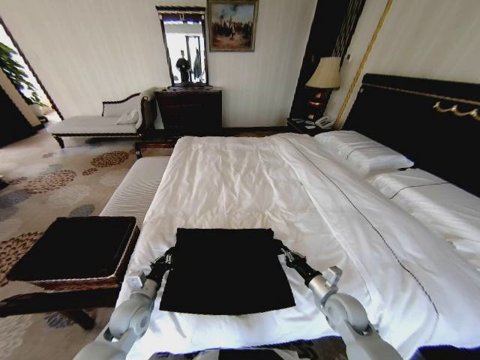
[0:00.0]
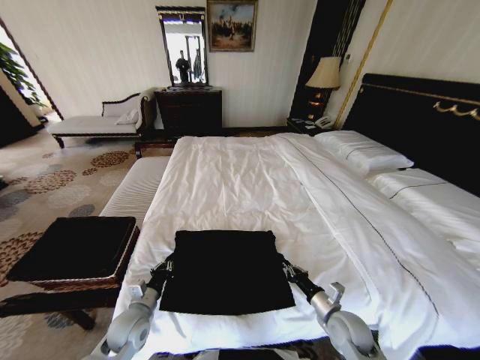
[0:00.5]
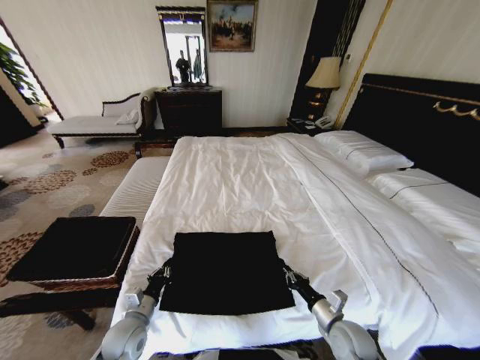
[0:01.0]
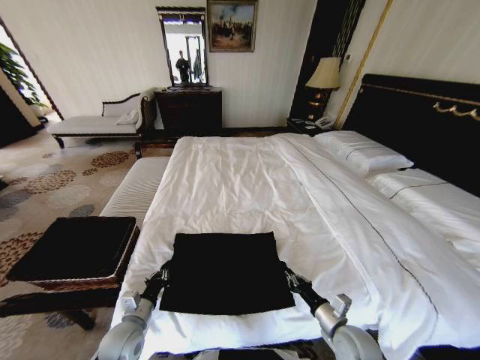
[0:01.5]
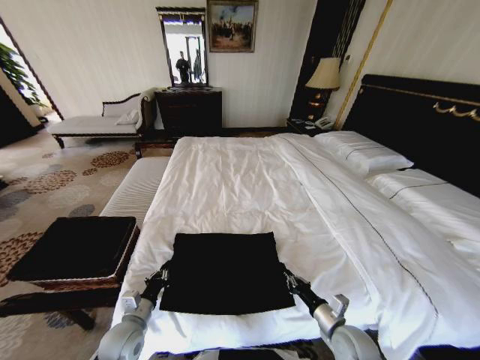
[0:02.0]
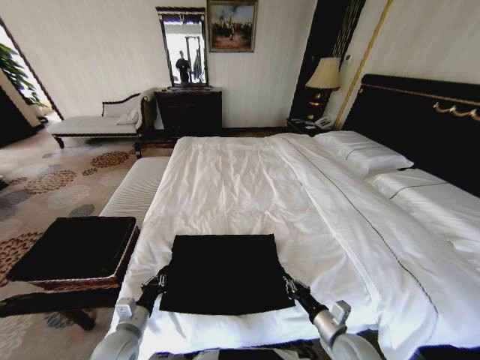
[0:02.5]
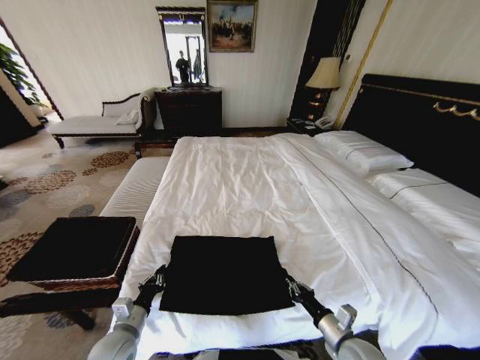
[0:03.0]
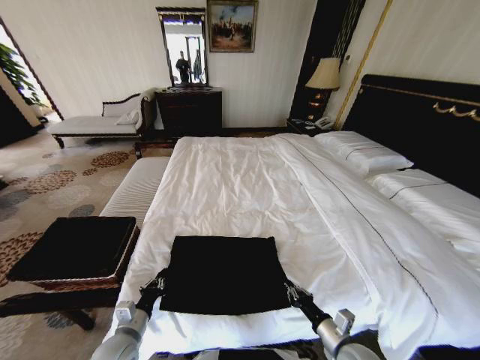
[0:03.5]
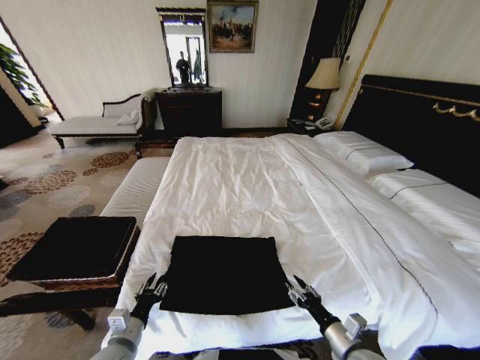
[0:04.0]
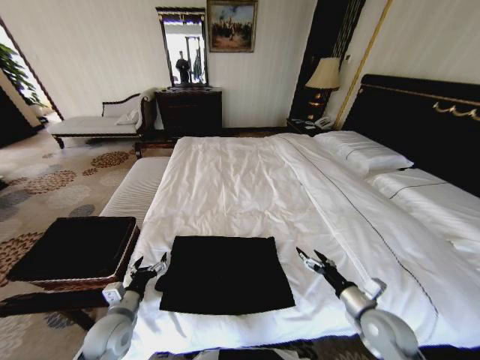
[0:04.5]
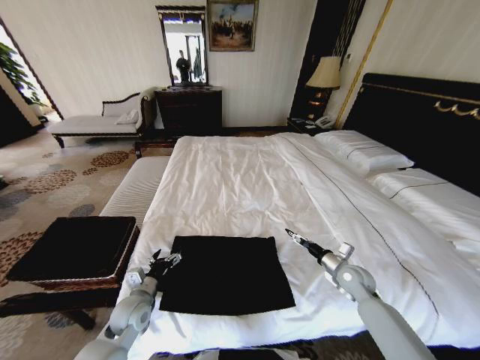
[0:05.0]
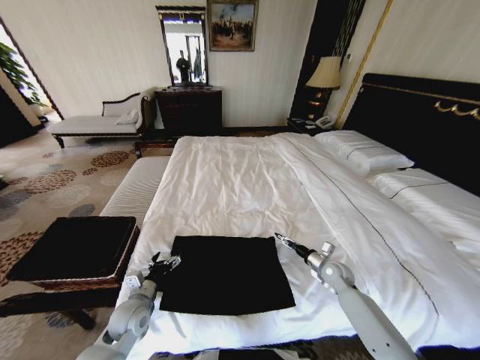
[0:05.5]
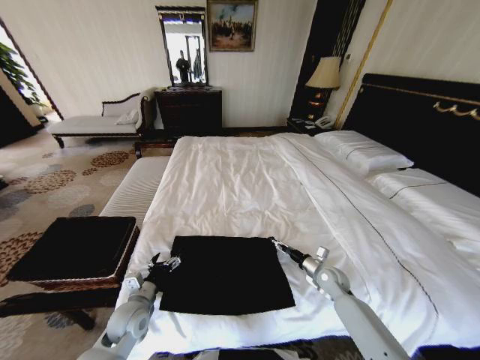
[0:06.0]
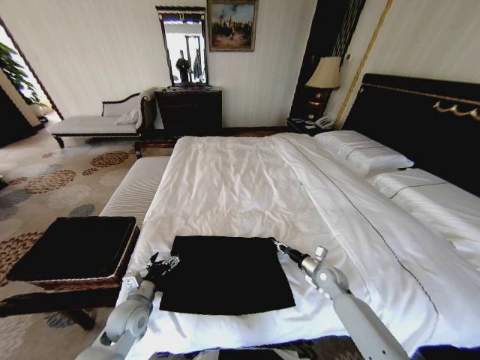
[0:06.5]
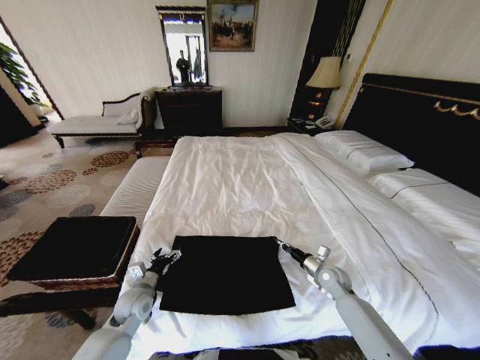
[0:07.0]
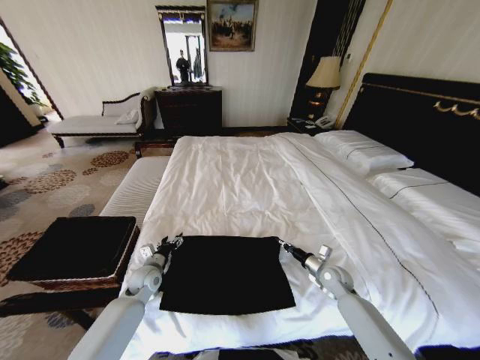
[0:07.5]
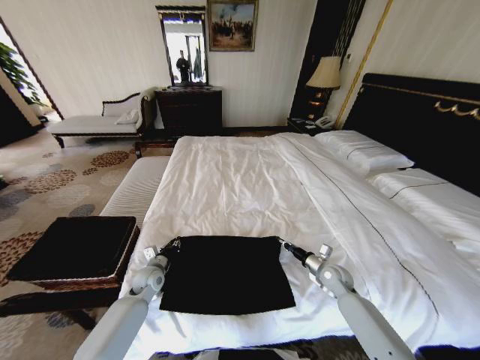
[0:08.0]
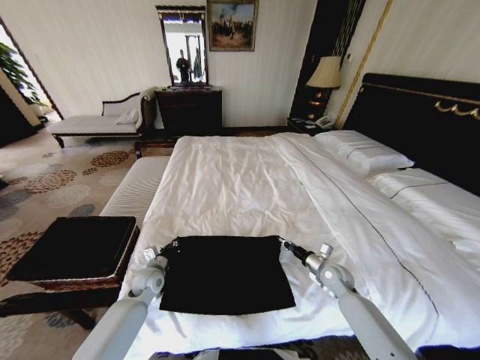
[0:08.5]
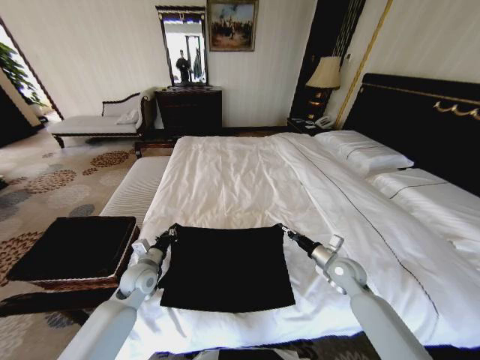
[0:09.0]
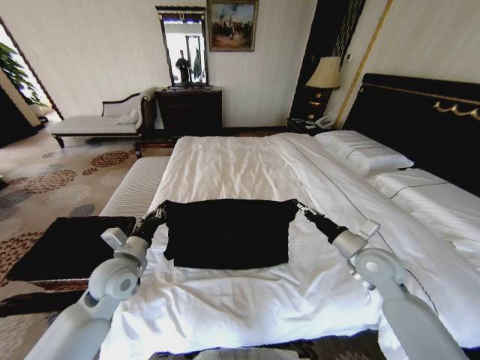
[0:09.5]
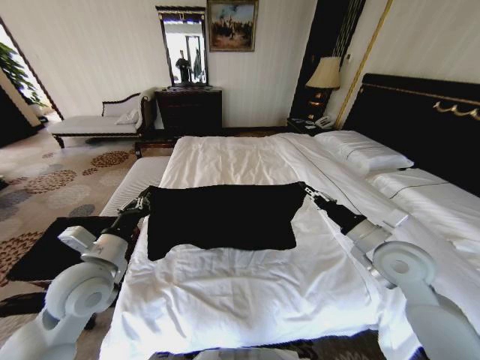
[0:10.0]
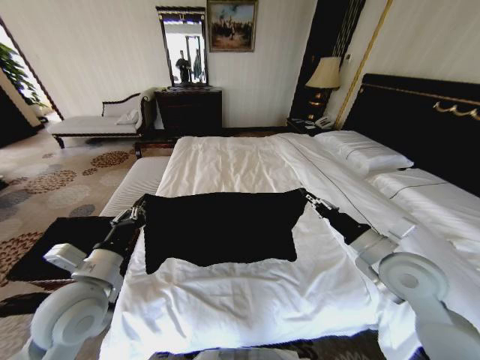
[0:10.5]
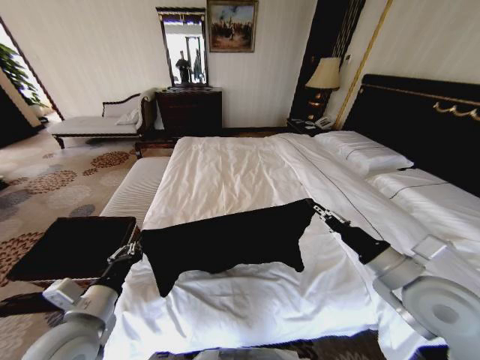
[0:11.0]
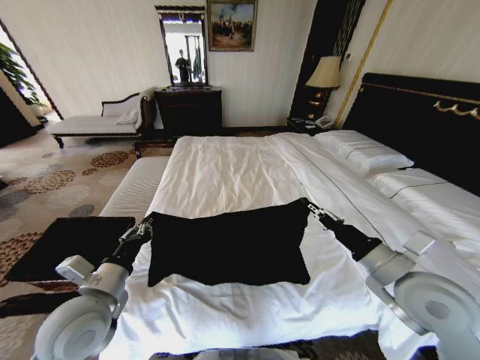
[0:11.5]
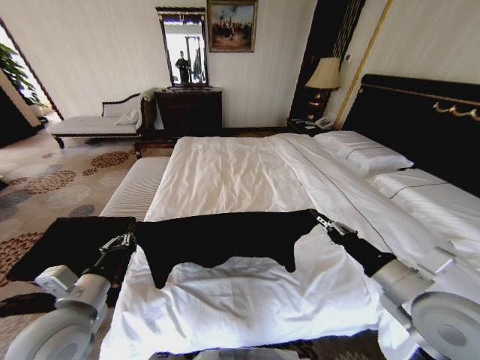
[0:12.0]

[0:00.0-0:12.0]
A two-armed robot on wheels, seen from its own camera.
Task of the whole recording: Fold the clothes on the bed and place them into the basket.
0:00.0 to 0:02.0: The grippers both shift backward by approximately 5 cm.
0:02.0 to 0:04.0: The left gripper moves approximately 5 cm, and opens; the right gripper travels backward by some 5 cm, and opens up.
0:04.0 to 0:06.0: The left gripper moves forward, roughly 10 cm, and opens. Meanwhile the right gripper shifts roughly 25 cm forward.
0:06.0 to 0:08.0: The left gripper moves forward, approximately 10 cm, and closes, while the right gripper closes its fingers.
0:08.0 to 0:10.0: The left gripper moves upward and backward, some 25 cm. Meanwhile the right gripper goes approximately 25 cm upward.
0:10.0 to 0:12.0: Both grippers travel together backward, about 10 cm.

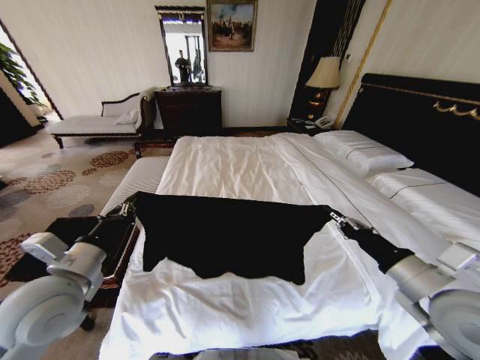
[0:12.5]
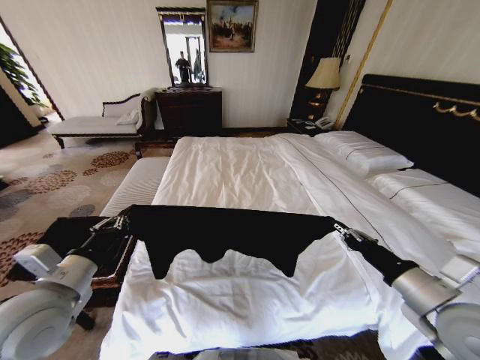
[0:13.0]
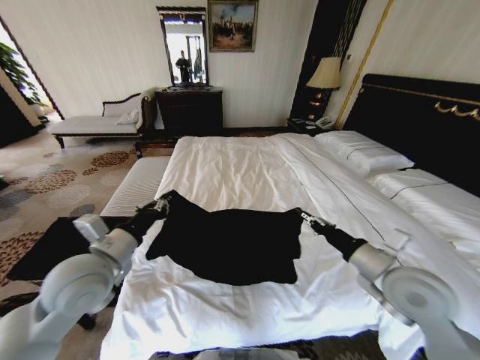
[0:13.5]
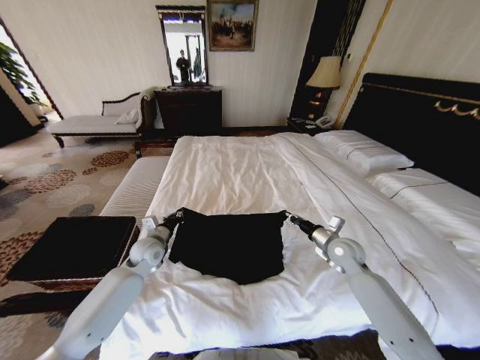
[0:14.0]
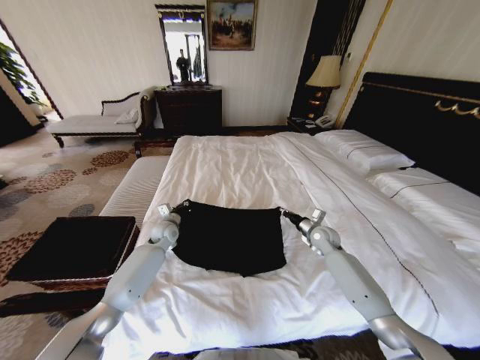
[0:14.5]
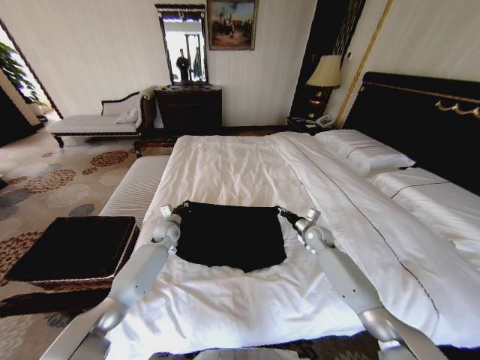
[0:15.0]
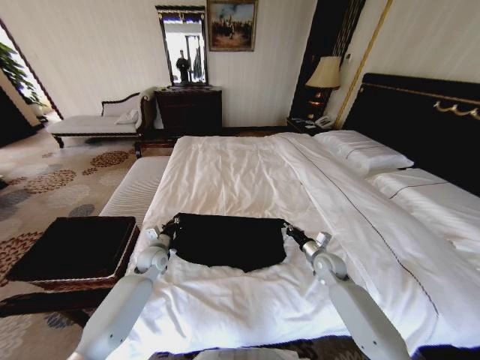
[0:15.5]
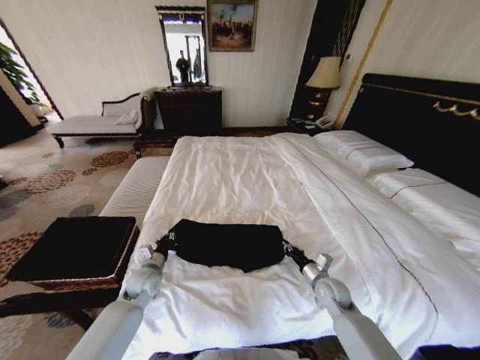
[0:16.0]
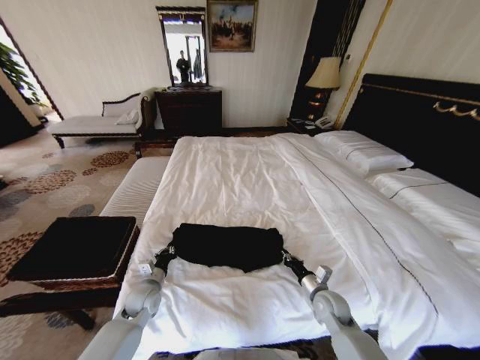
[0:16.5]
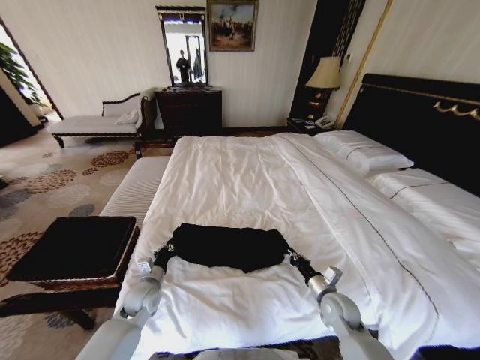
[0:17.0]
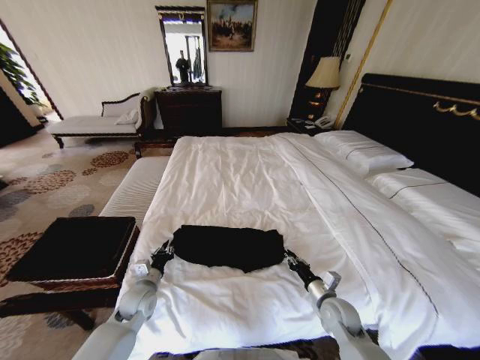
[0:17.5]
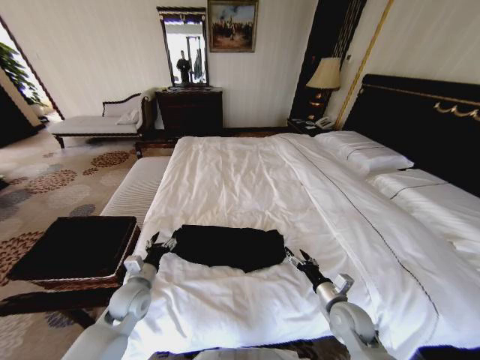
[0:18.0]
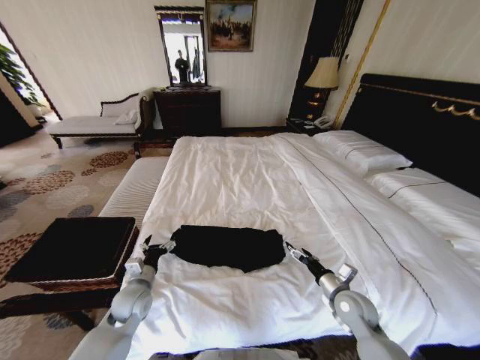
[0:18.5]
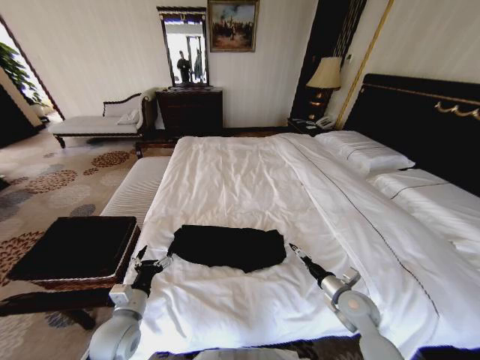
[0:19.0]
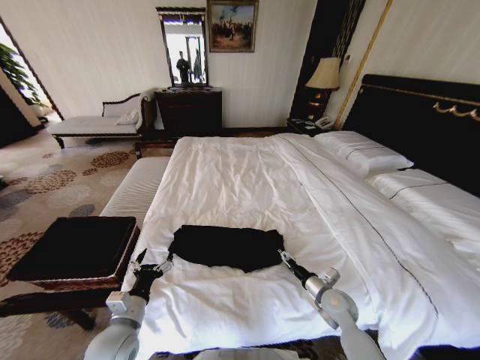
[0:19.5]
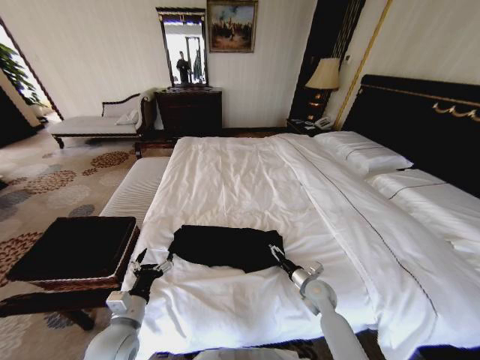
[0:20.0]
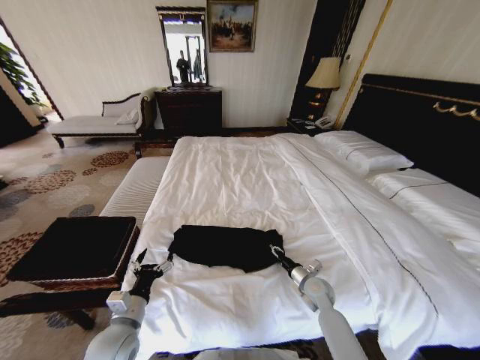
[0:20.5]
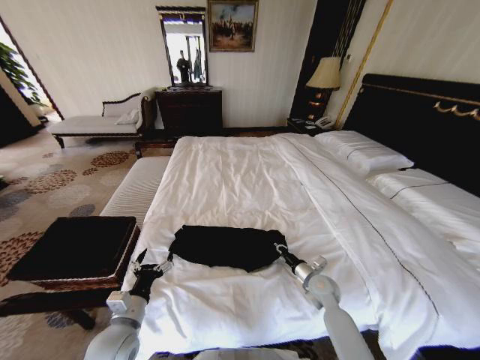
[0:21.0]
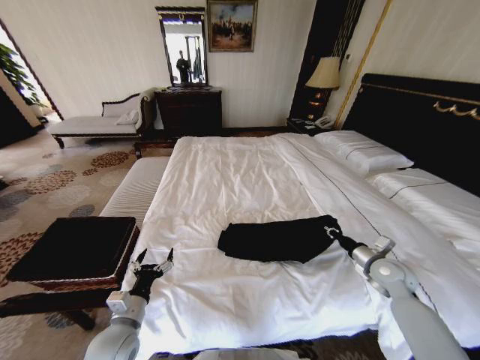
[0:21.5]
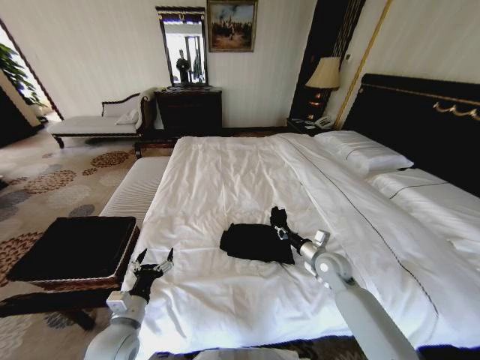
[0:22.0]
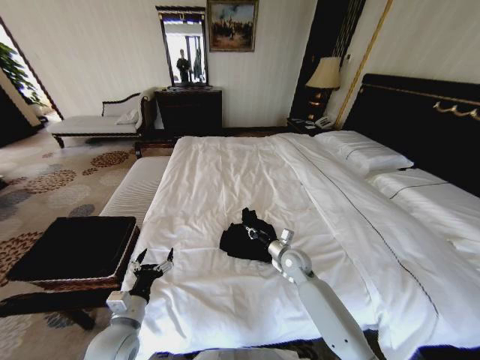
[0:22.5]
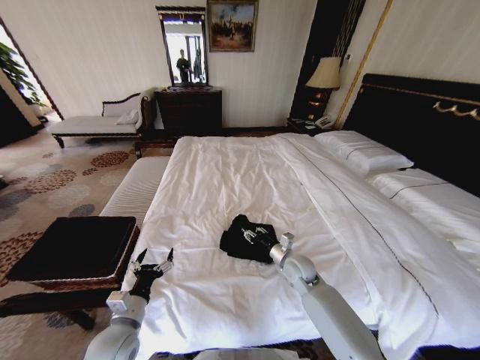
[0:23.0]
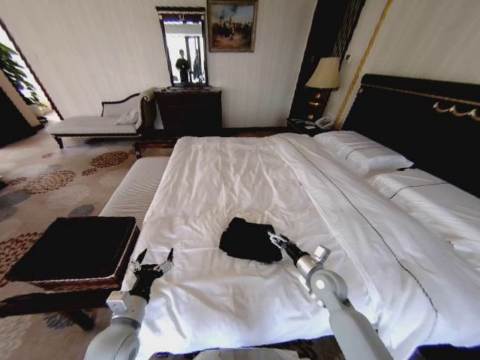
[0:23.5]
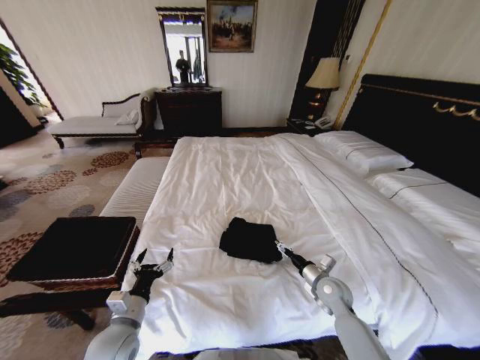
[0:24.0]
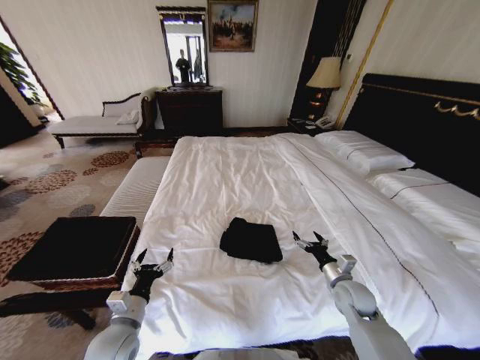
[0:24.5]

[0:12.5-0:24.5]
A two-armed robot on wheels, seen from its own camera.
Task of the whole recording: Fold the clothes on the bed and place them into the basket.
0:12.5 to 0:14.5: The grippers both shift forward and downward by approximately 35 cm.
0:14.5 to 0:16.5: Both grippers travel together backward and downward, about 20 cm.
0:16.5 to 0:18.5: Both grippers move upward, roughly 5 cm. The left gripper opens up; the right gripper opens.
0:18.5 to 0:20.5: The right gripper moves downward and forward, approximately 10 cm, and closes its fingers. The left gripper heads backward, covering roughly 10 cm.
0:20.5 to 0:22.5: The right gripper goes roughly 10 cm upward and forward, moves some 15 cm to the right and comes back, and closes.
0:22.5 to 0:24.5: The right gripper goes about 15 cm to the right and backward, and opens.

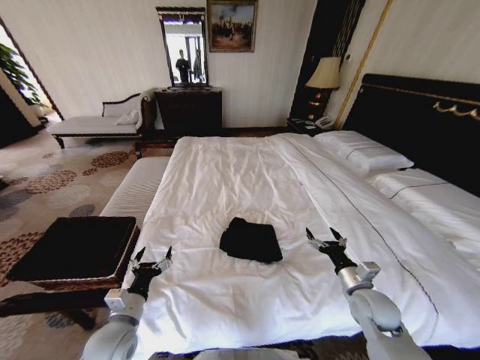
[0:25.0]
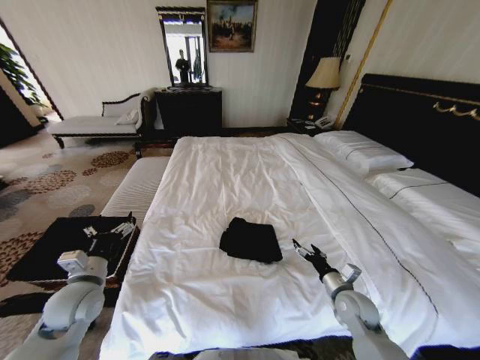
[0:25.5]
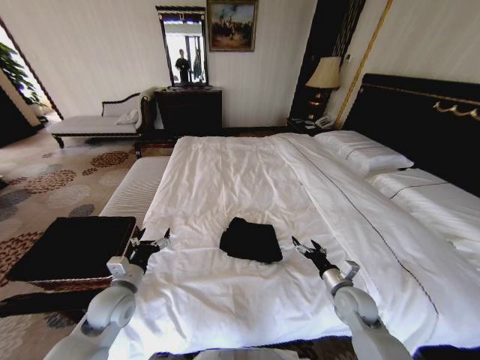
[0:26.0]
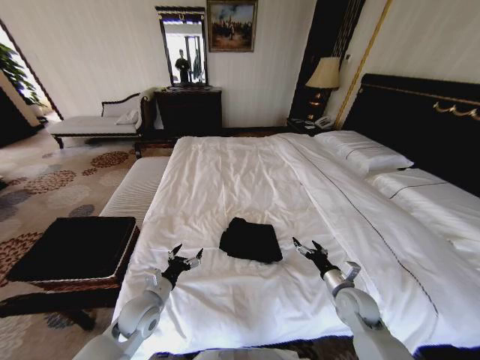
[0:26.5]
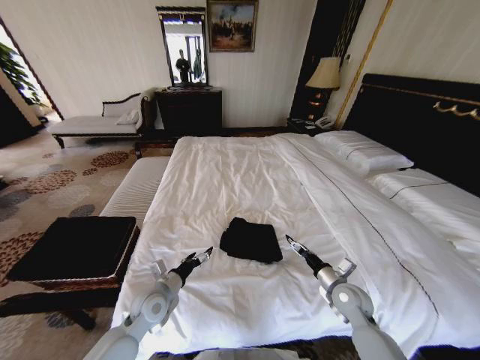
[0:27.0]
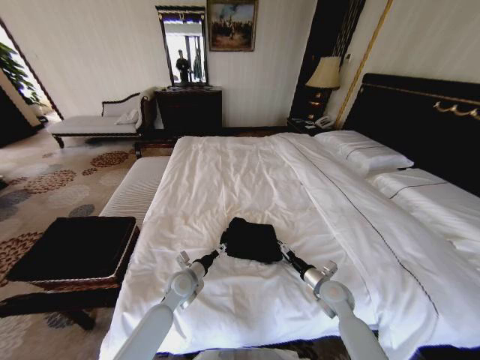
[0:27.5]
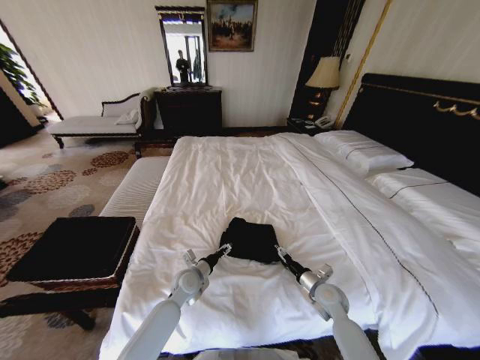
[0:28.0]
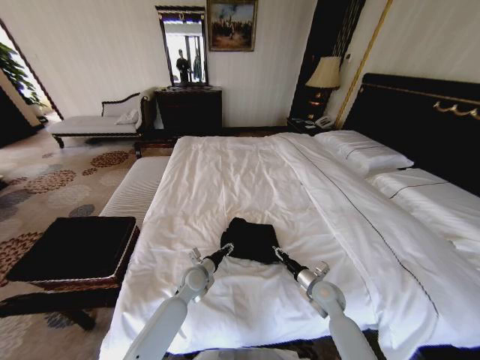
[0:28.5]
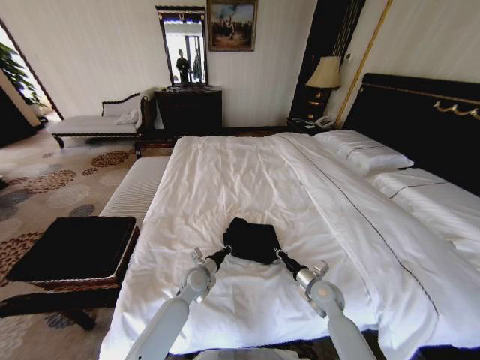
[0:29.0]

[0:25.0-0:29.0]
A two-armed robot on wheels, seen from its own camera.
Task of the whole recording: Fold the clothes on the bed and place them into the basket.
0:25.0 to 0:27.0: The left gripper is displaced forward by some 10 cm.
0:27.0 to 0:29.0: The left gripper travels to the right, forward and downward by about 15 cm, and closes. The right gripper changes place by some 5 cm, and closes.
